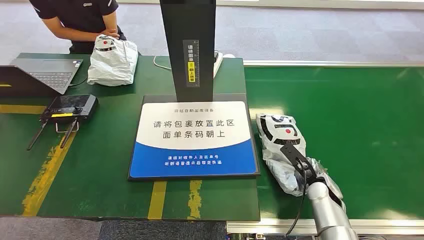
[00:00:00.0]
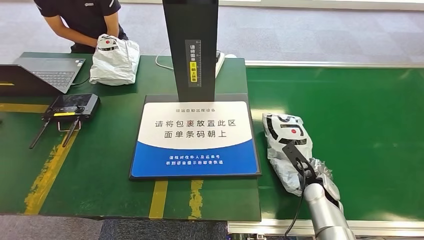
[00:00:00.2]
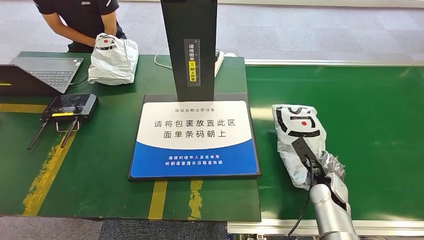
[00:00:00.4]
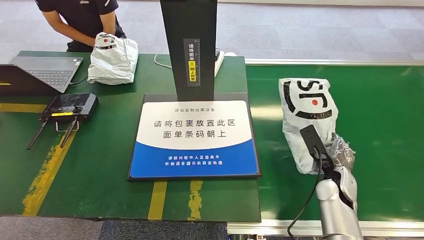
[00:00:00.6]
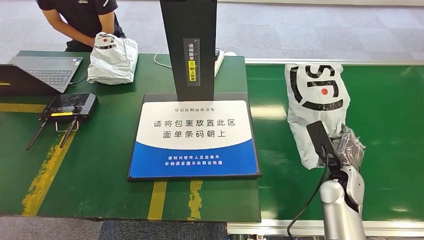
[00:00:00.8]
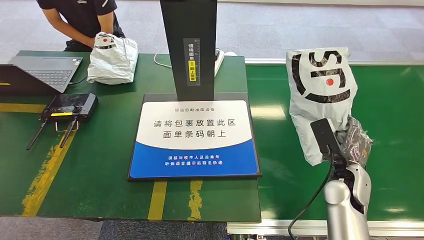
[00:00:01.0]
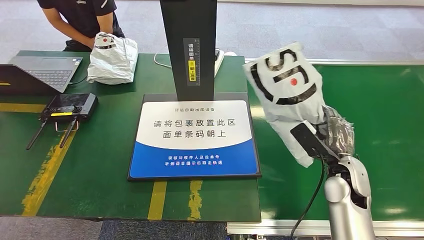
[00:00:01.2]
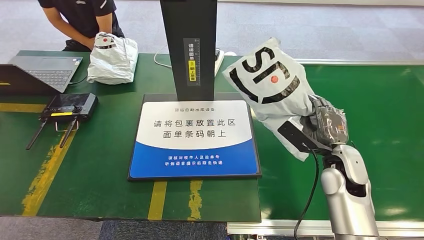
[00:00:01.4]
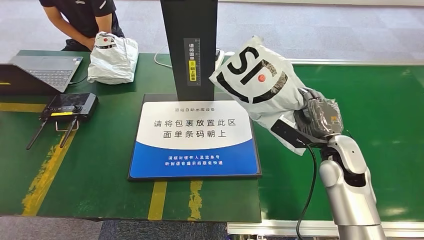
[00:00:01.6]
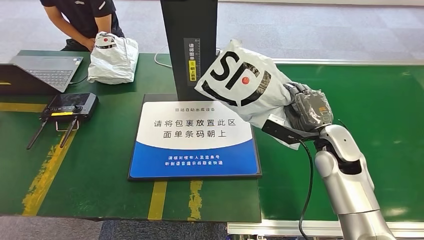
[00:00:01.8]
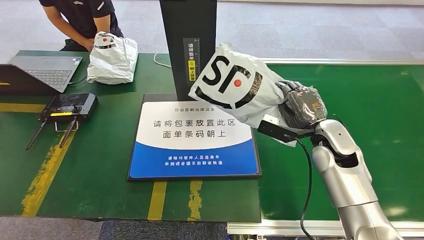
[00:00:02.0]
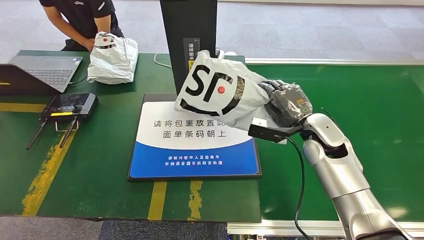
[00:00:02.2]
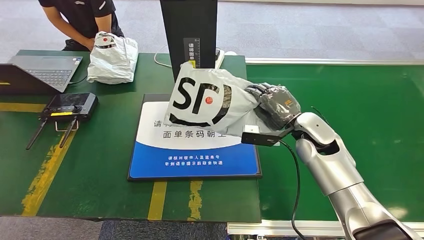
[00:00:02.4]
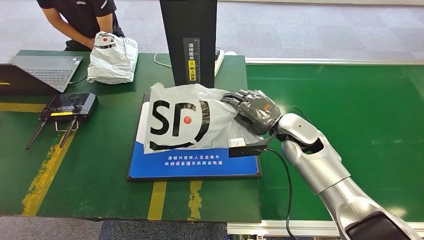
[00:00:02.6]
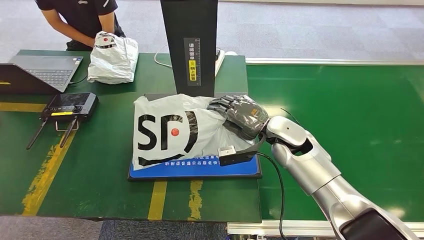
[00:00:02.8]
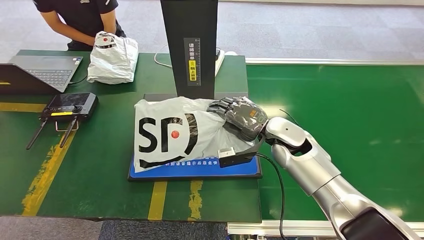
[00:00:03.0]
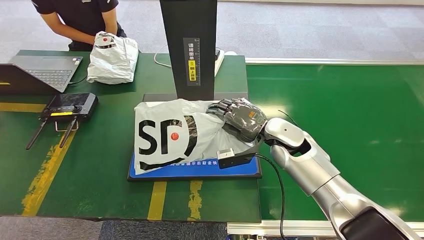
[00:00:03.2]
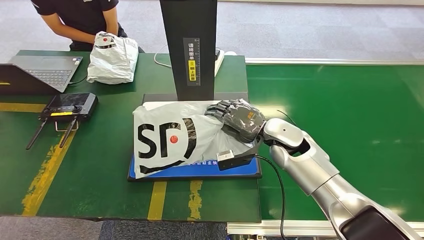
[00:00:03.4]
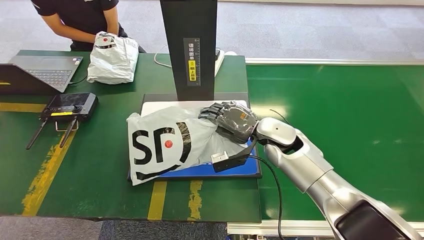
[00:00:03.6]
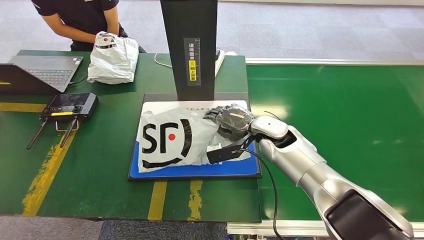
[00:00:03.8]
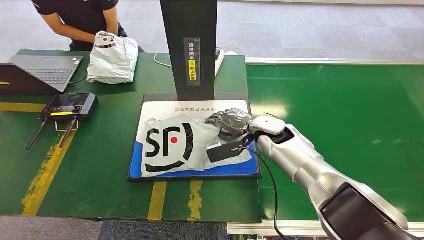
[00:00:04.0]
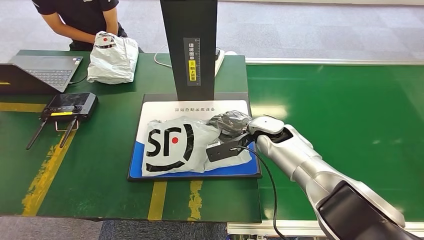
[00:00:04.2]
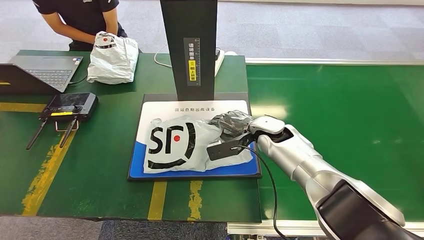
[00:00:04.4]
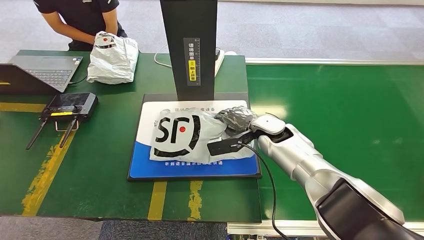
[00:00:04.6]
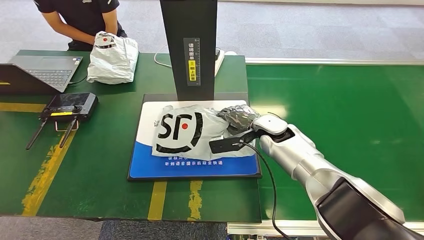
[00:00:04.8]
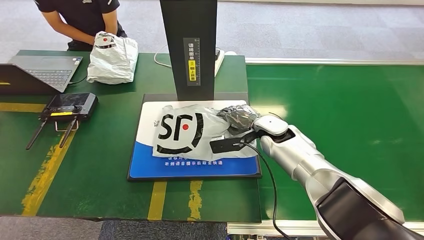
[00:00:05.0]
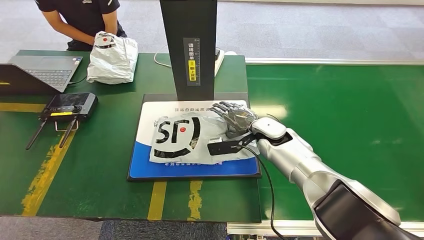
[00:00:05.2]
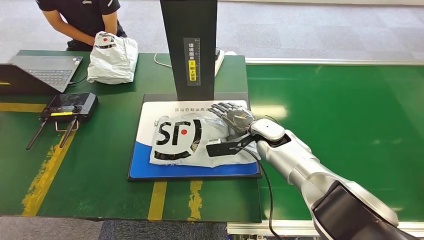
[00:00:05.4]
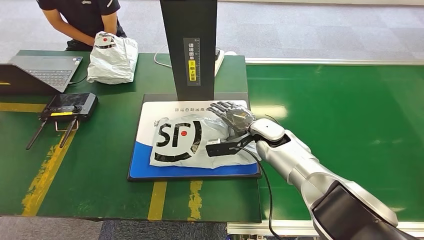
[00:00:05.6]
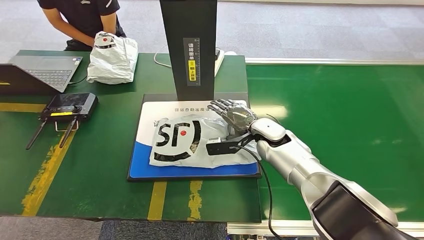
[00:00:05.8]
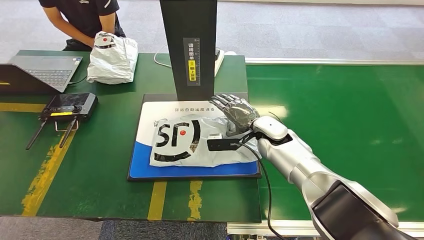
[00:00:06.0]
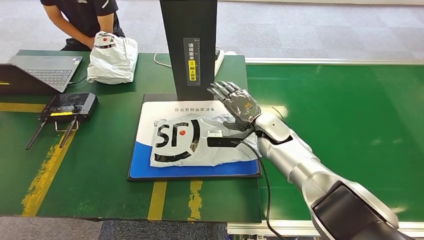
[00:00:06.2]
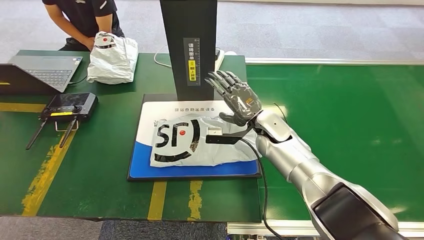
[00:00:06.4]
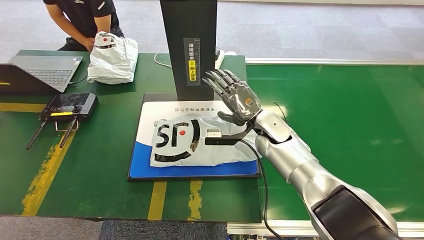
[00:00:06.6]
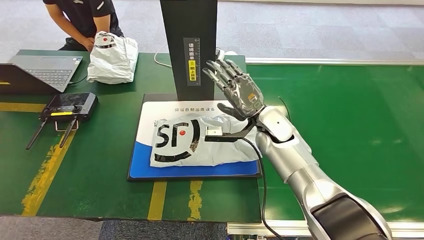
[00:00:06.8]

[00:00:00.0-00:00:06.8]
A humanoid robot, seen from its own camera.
Step, 00:00:00.0 to 00:00:01.6: Pick up the package from the conveyor belt.
Step, 00:00:01.8 to 00:00:06.8: Place the package onto the inbound machine.
00:00:04.0 to 00:00:05.4: There are only small adjustments of the hands.
